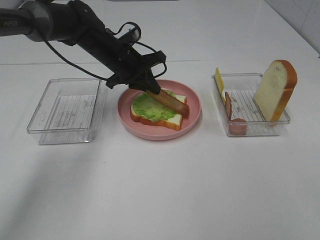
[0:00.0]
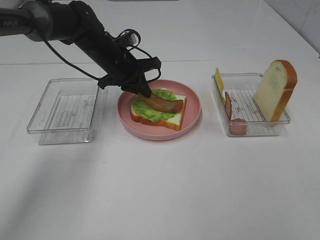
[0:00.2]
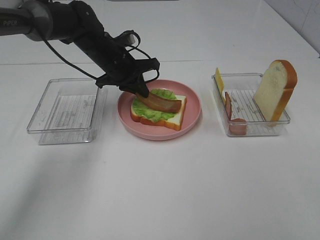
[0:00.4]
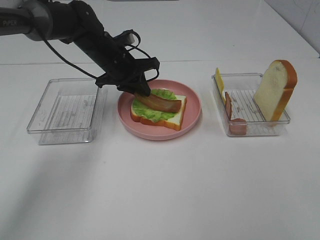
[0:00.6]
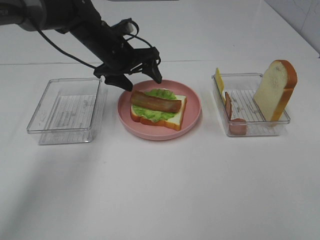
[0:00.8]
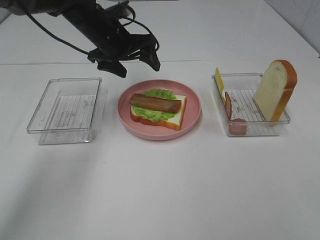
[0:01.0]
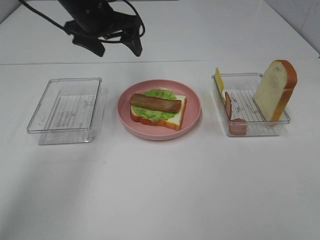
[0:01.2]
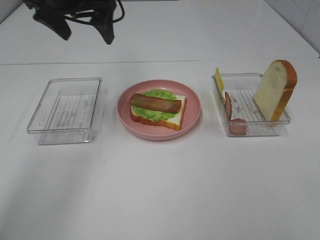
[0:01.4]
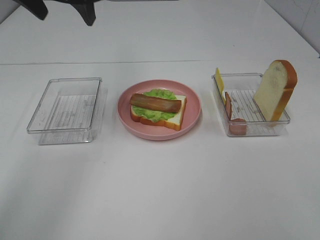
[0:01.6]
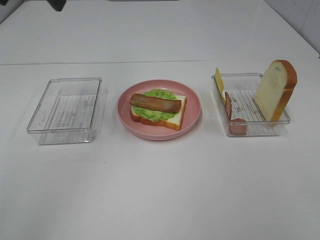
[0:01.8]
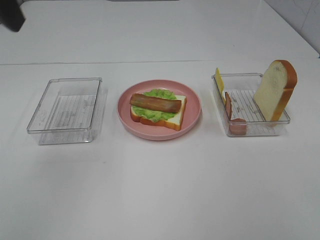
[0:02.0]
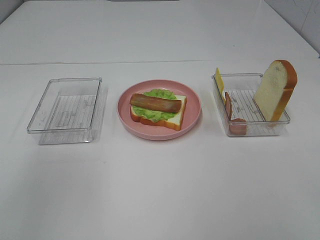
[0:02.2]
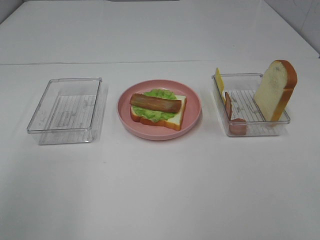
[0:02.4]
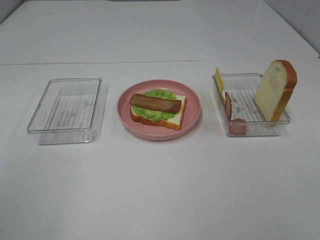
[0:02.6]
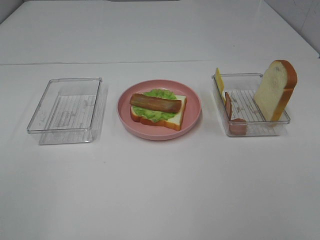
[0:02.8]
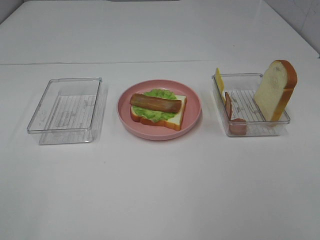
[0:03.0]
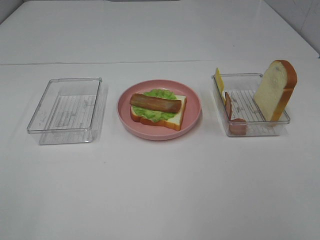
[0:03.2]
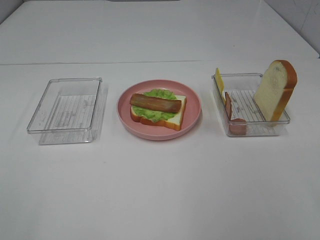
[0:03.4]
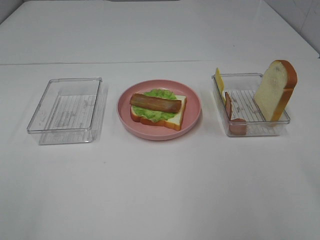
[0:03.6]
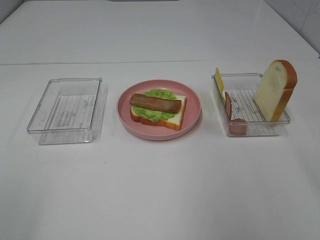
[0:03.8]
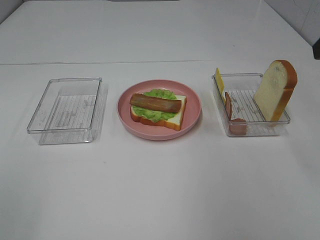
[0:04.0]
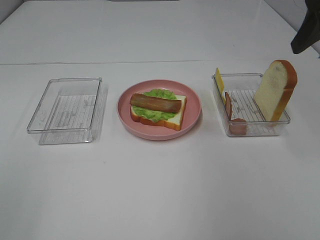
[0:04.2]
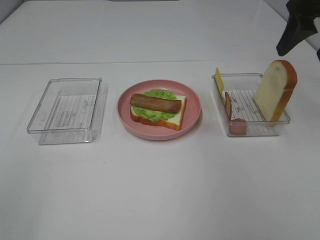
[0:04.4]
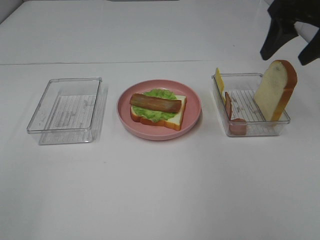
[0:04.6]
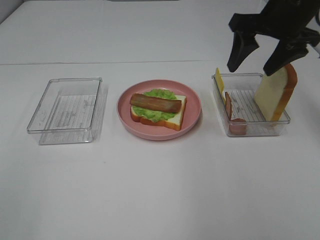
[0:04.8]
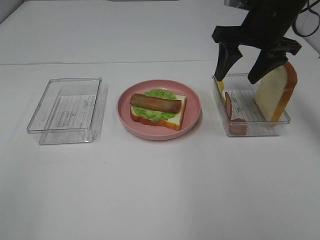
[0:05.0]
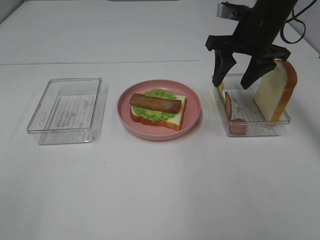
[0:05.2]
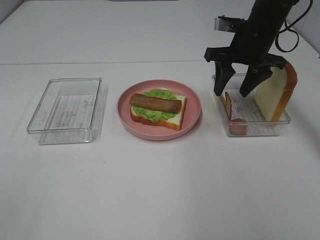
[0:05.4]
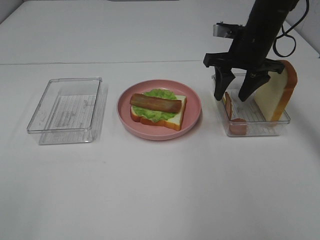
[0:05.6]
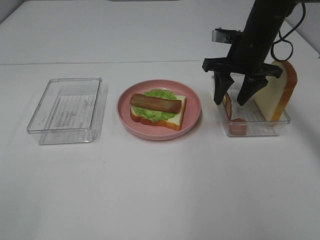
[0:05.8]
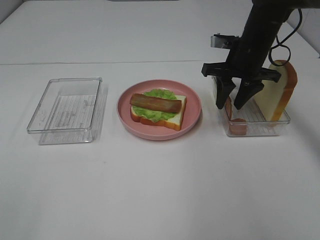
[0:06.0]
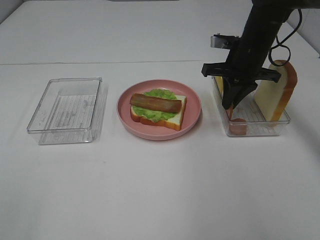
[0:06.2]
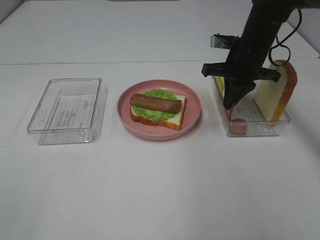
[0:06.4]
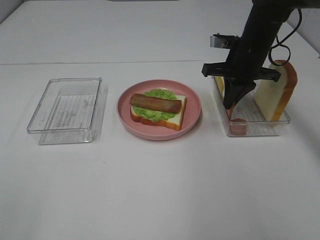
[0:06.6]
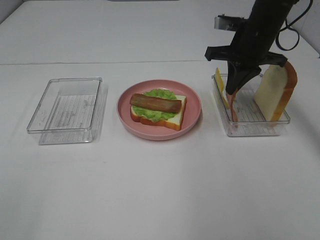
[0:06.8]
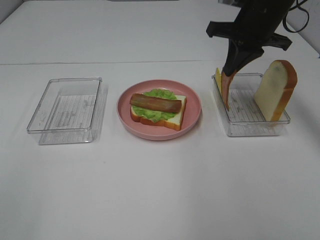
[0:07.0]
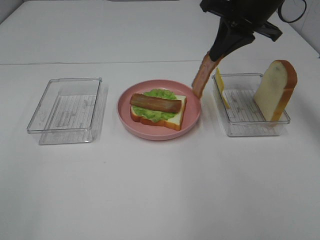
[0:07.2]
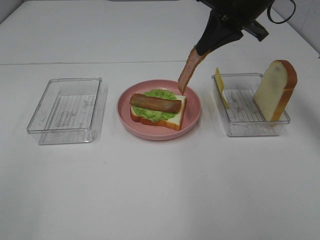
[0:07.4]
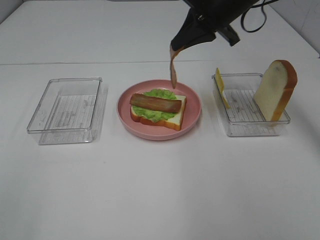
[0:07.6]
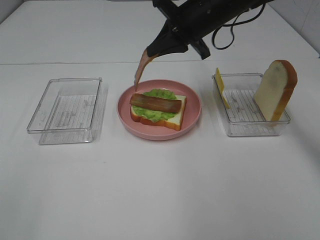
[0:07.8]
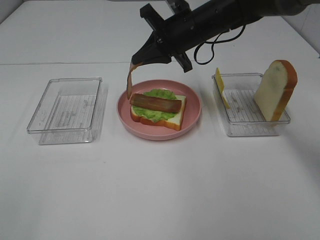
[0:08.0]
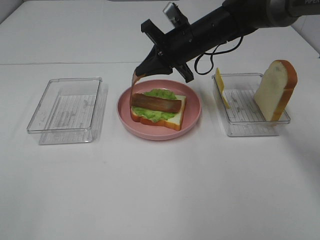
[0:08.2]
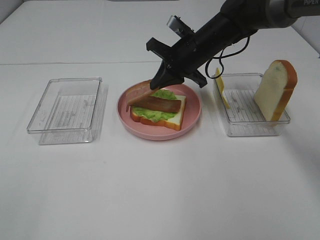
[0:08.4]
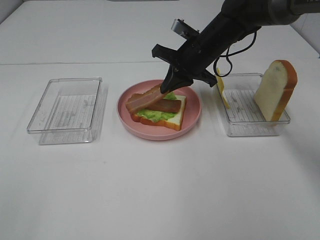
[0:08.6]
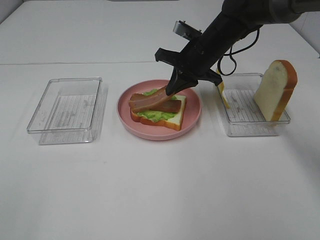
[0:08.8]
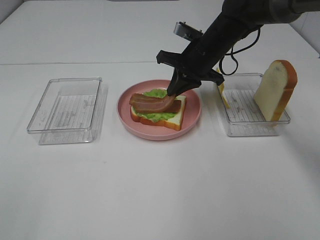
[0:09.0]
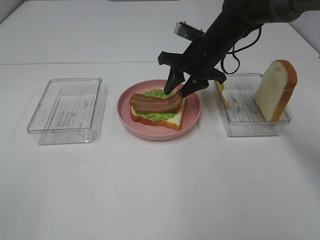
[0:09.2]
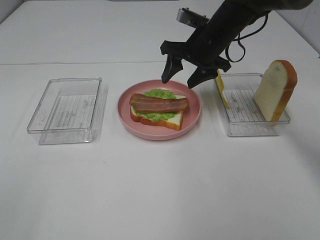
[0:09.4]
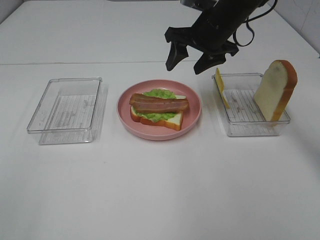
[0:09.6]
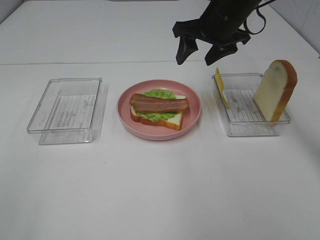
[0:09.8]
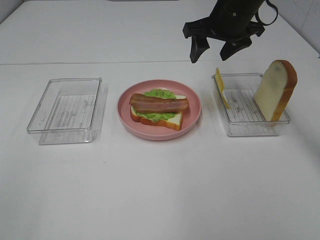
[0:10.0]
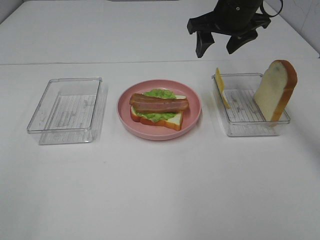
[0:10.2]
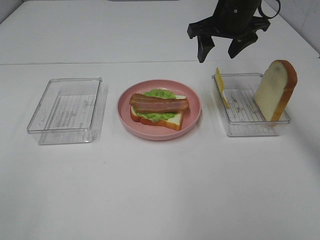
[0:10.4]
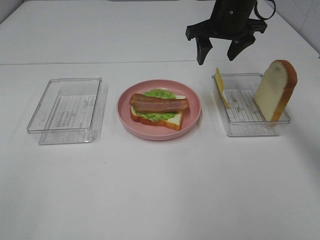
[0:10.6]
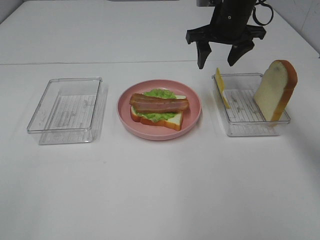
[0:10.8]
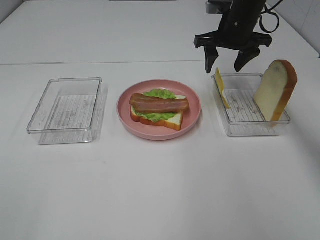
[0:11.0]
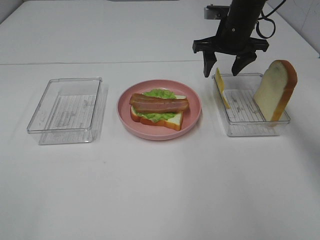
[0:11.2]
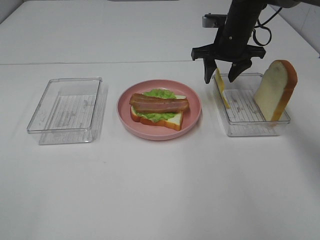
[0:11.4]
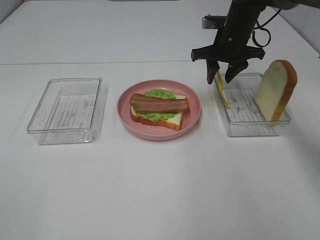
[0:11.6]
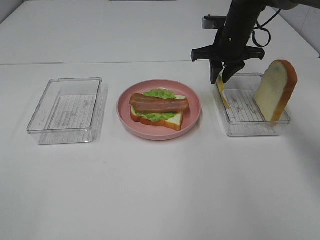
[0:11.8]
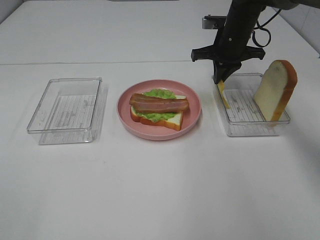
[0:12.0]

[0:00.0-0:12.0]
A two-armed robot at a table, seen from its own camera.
Task of the whole recording: Make sandwiches.
Step, 1.0 to 6.2 s: Right hand:grab the bacon.
Step, 6.4 to 9.4 s: Right hand:place bacon on bacon.
0.0 to 1.6 s: The left gripper shifts roughly 20 cm upward, and opens up.
1.6 to 3.0 s: The left gripper heads backward, covering some 40 cm.
3.0 to 4.4 s: The right gripper moves forward, approximately 35 cm.
4.4 to 6.0 s: The right gripper shifts some 20 cm downward, to the left and forward, and closes its fingers.
6.0 to 7.6 s: The right gripper heads upward and to the left, covering approximately 10 cm, and closes up.
7.6 to 9.0 s: The right gripper is displaced downward by some 10 cm.
9.0 to 10.4 s: The right gripper heads upward, covering about 10 cm, and opens.
10.4 to 12.0 s: The right gripper shifts about 5 cm downward, and closes its fingers.

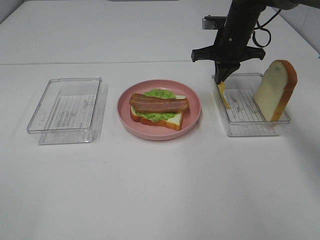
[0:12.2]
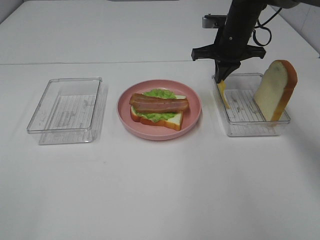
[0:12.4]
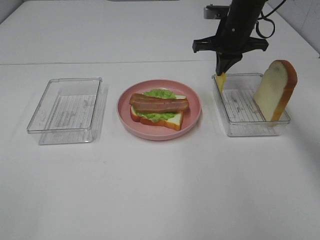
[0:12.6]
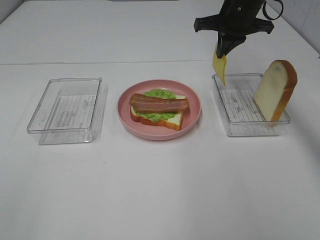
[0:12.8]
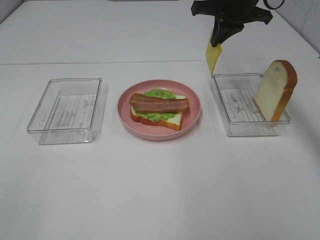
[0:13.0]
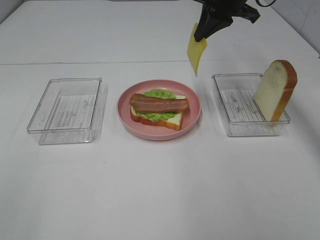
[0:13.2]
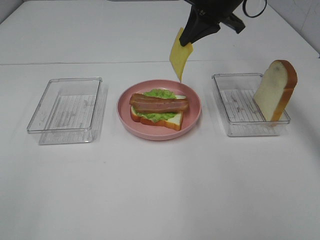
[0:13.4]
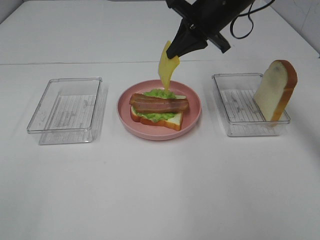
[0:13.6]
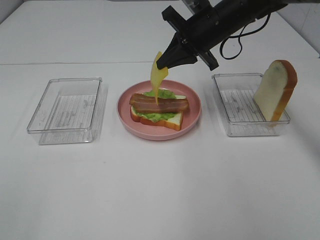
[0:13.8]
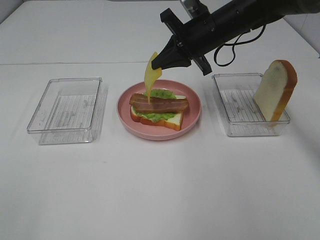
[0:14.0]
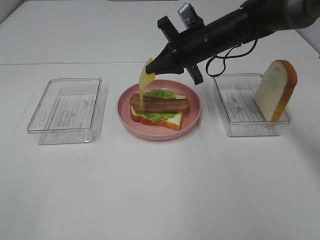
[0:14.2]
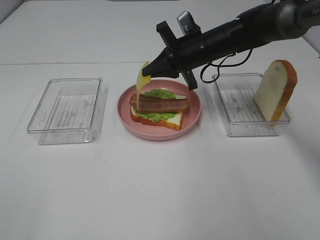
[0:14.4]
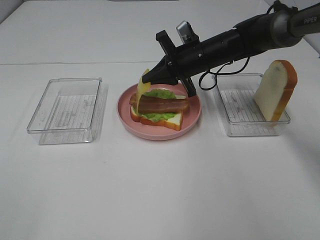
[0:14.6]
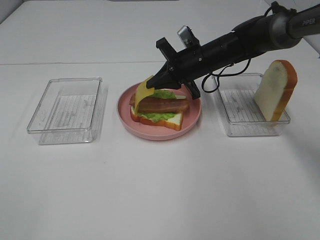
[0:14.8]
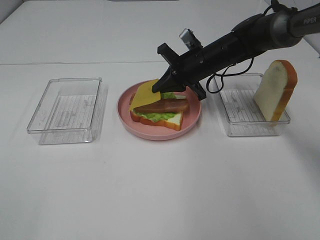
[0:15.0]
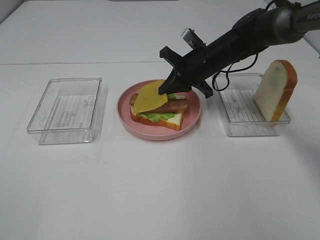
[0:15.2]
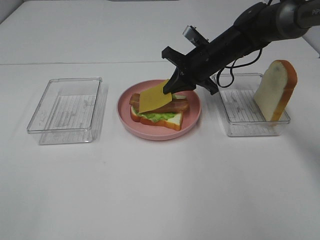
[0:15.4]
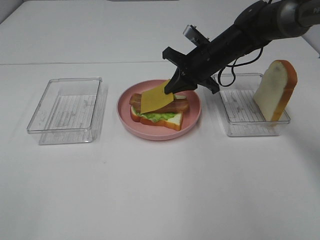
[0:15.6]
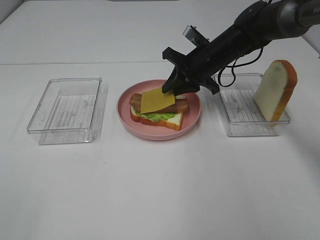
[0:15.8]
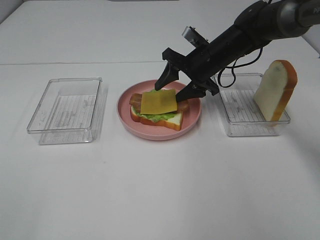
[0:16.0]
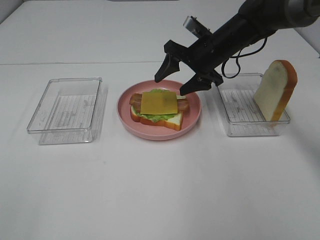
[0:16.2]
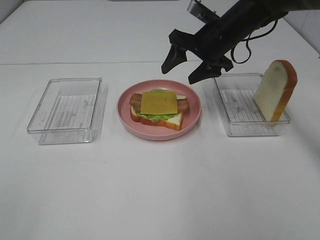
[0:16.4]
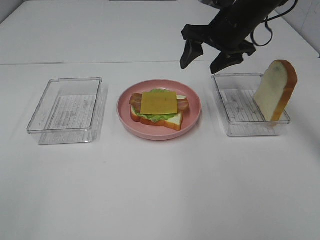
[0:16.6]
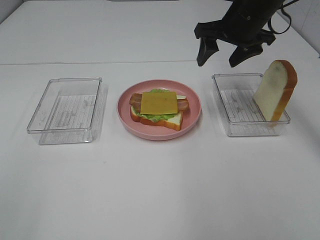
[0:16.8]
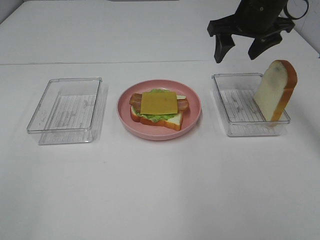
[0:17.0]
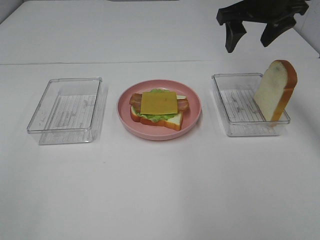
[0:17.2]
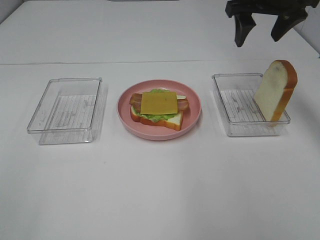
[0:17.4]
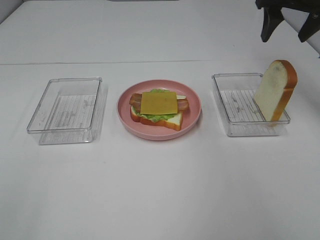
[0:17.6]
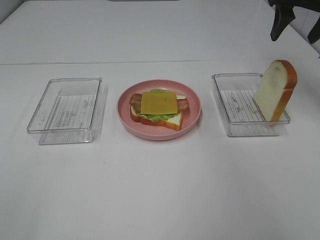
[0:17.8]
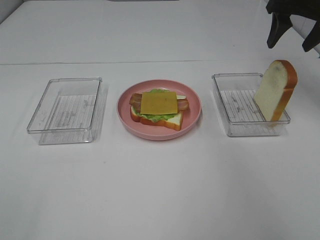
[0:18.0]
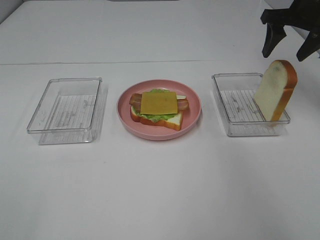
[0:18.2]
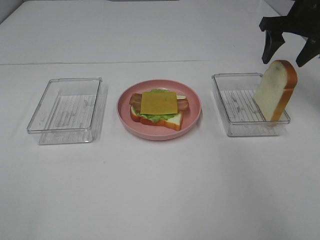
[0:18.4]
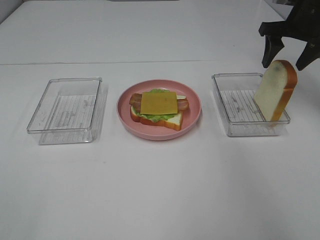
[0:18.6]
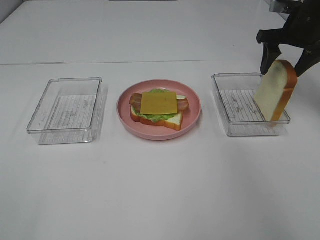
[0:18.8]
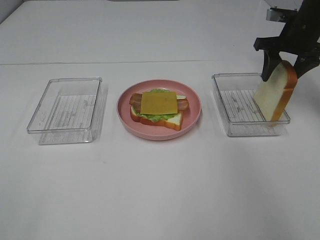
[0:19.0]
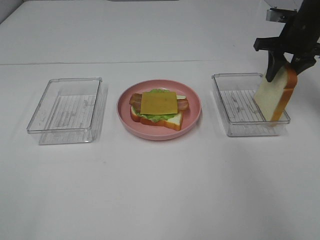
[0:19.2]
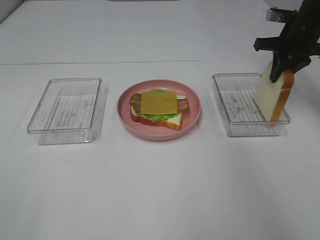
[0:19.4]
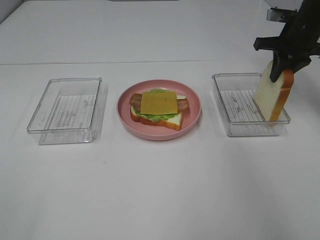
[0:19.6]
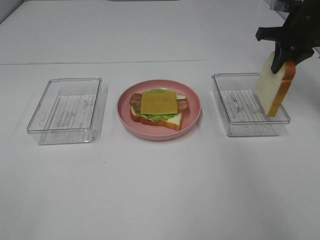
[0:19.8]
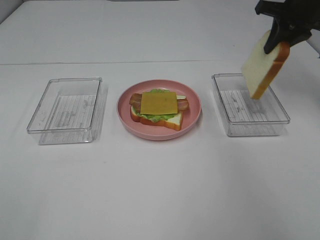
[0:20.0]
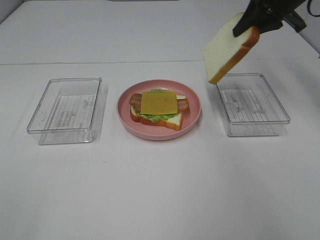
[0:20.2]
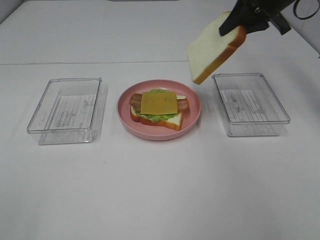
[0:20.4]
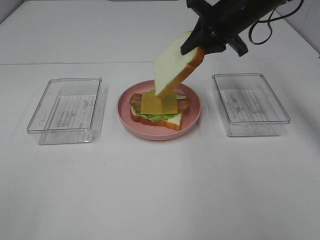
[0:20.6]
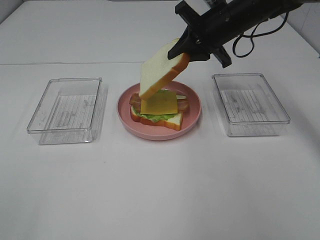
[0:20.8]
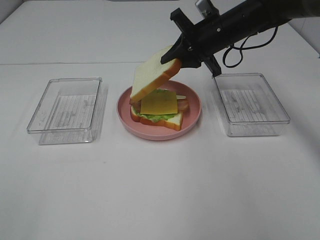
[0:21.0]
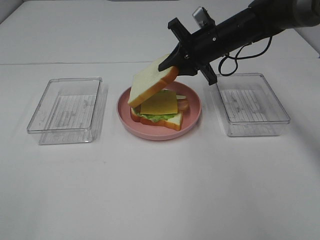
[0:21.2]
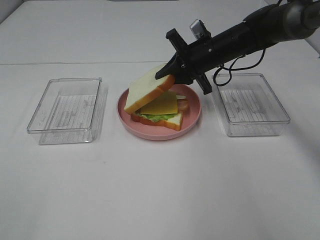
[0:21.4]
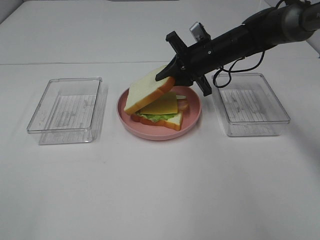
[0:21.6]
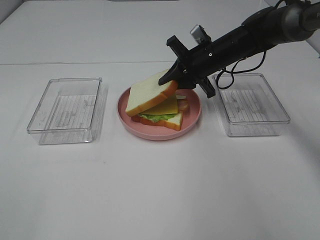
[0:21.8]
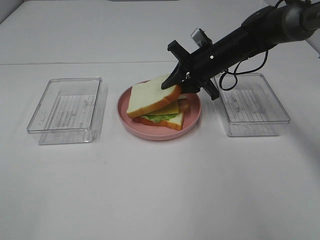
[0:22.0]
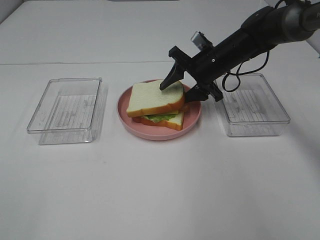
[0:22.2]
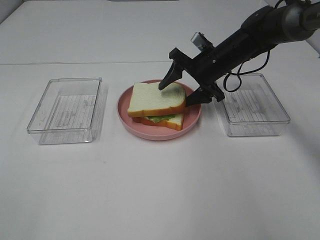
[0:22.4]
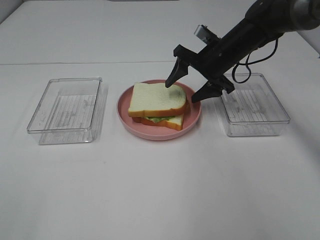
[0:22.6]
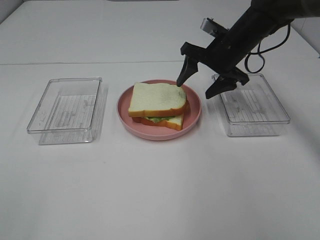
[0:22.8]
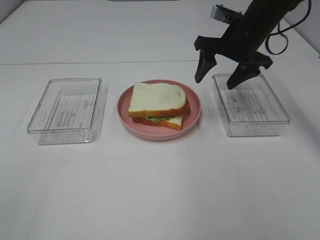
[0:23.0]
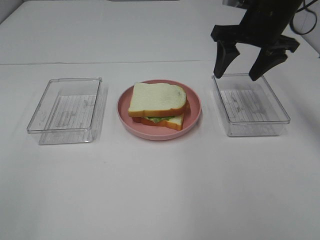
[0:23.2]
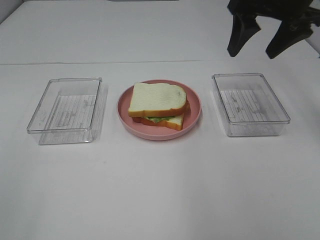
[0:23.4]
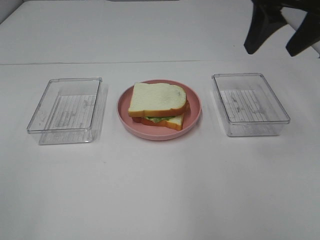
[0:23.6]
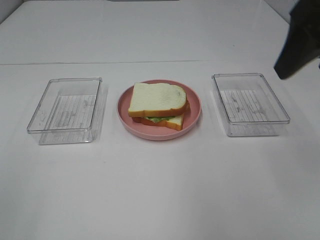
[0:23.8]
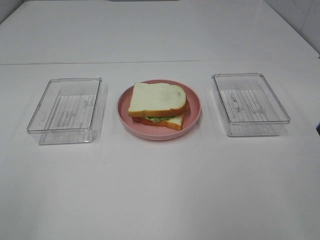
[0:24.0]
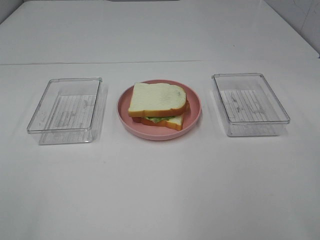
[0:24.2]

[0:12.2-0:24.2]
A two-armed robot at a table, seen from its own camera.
Task of the whole recording: Make sandwiches.
Step, 12.6 to 16.2 s: Right hand:place the cheese slice on top of the bacon.
Step, 16.4 to 19.4 s: Right hand:grab the bread slice.
Step, 19.6 to 22.6 s: Right hand:place the bread slice on the cheese slice.
12.2 to 13.8 s: The right gripper heads backward, covering approximately 5 cm, and travels upward and back again, some 10 cm each way.
13.8 to 15.2 s: The right gripper is displaced downward by about 10 cm.
15.2 to 16.6 s: The right gripper shifts approximately 10 cm upward, and opens up.
16.6 to 18.2 s: The right gripper goes roughly 15 cm to the right.
18.2 to 19.8 s: The right gripper closes.
19.8 to 21.2 s: The right gripper moves to the left and downward, some 20 cm.
21.2 to 22.6 s: The right gripper opens its fingers.
22.6 to 24.2 s: The right gripper is displaced backward and upward by about 40 cm.
